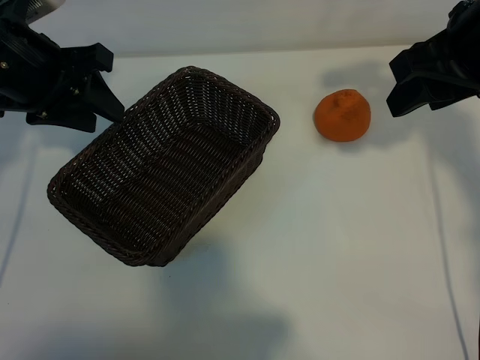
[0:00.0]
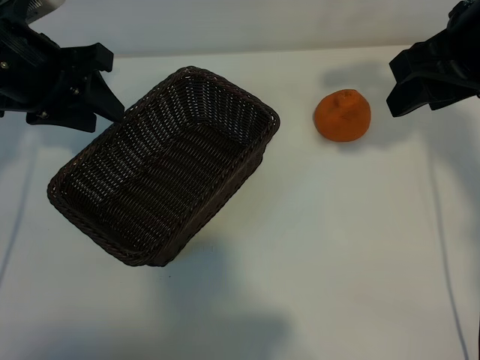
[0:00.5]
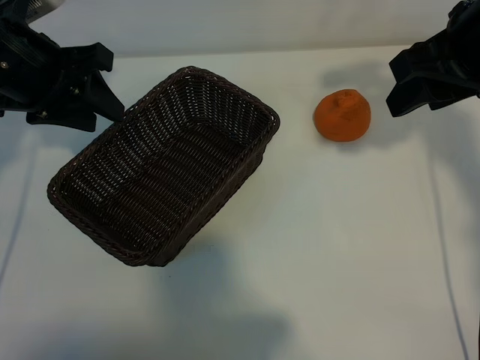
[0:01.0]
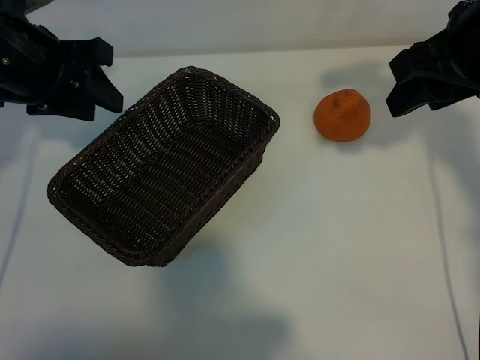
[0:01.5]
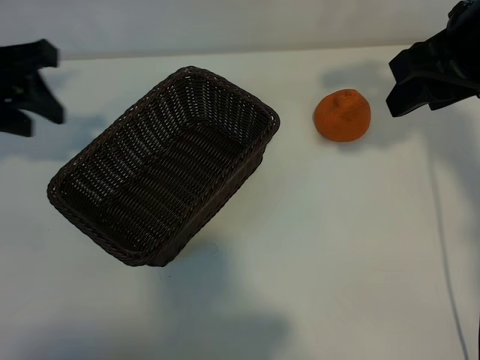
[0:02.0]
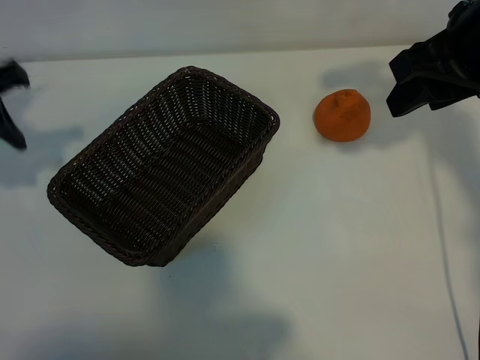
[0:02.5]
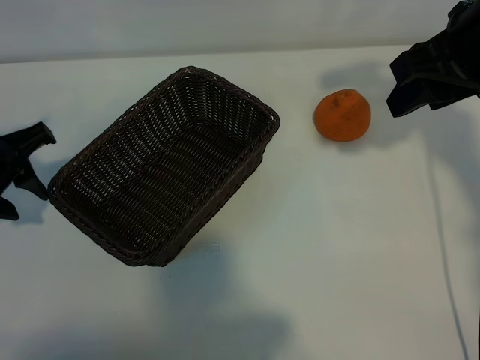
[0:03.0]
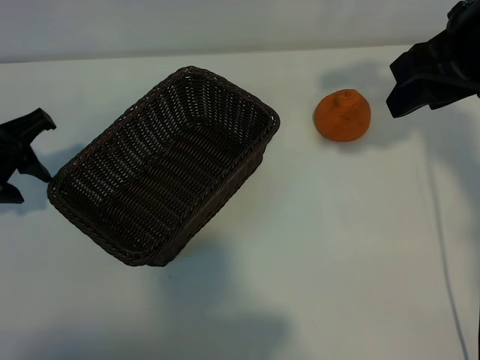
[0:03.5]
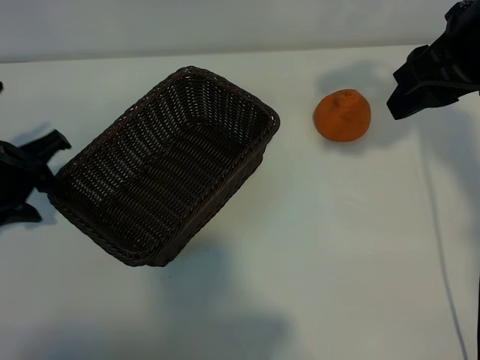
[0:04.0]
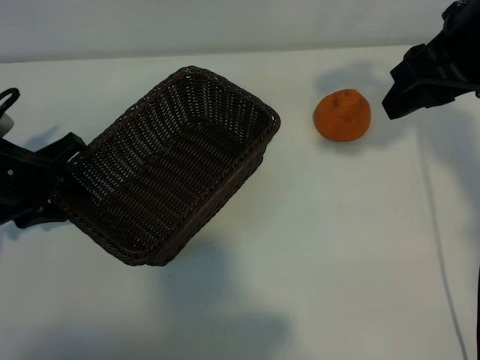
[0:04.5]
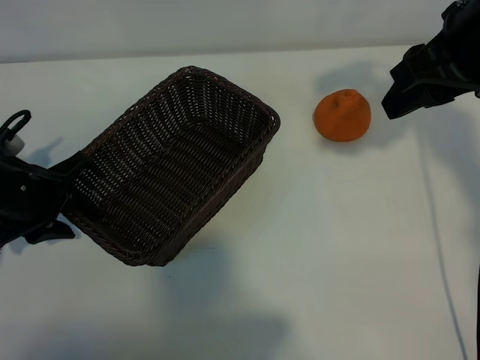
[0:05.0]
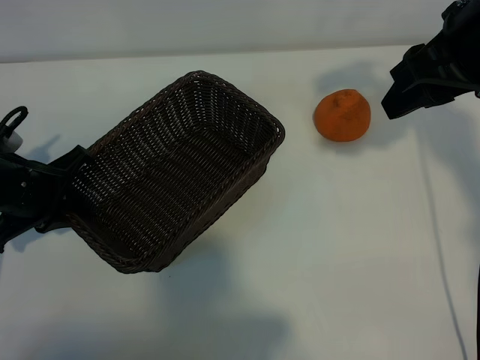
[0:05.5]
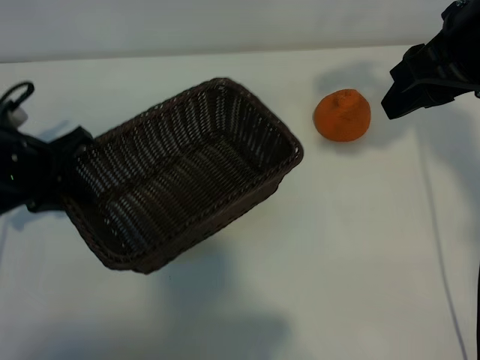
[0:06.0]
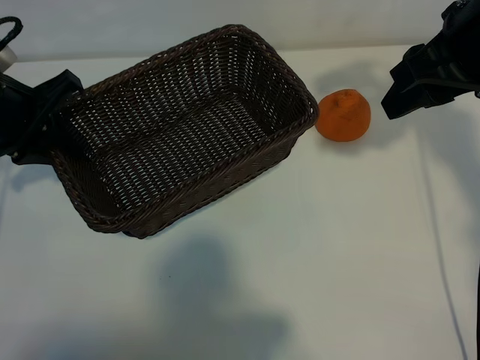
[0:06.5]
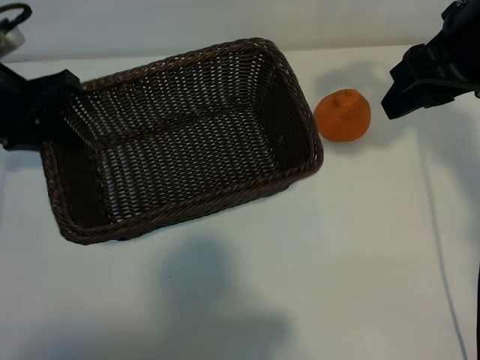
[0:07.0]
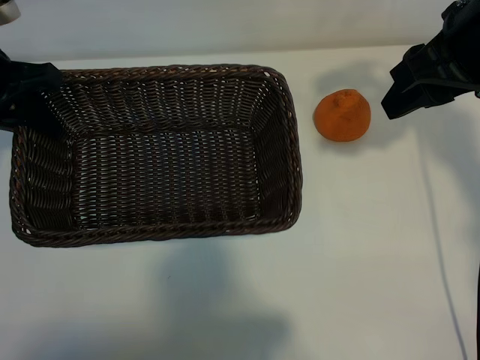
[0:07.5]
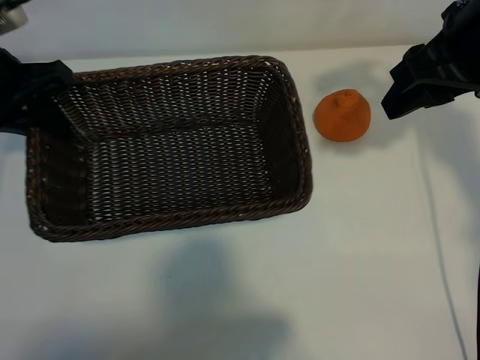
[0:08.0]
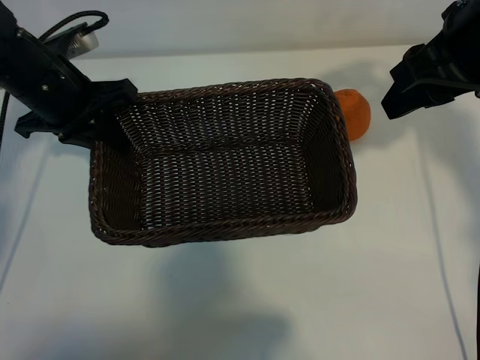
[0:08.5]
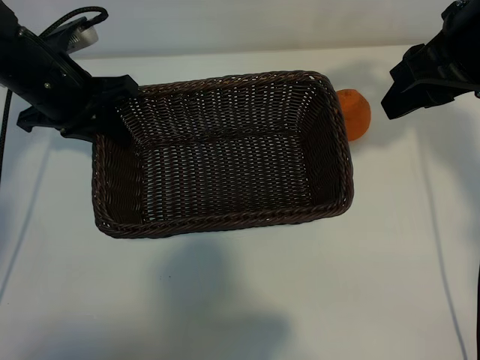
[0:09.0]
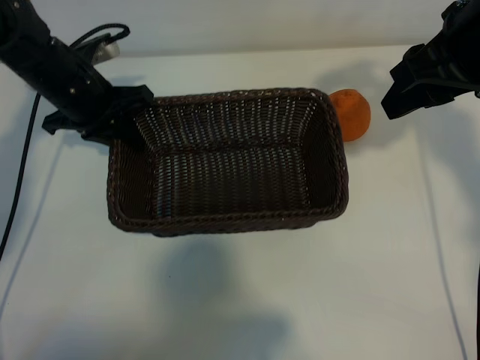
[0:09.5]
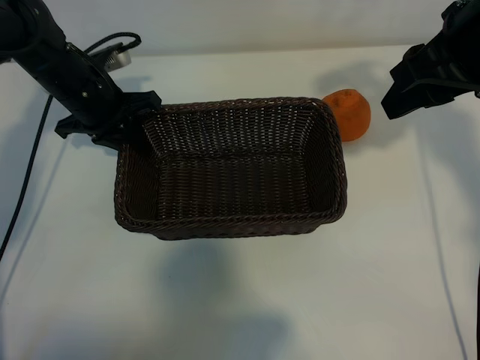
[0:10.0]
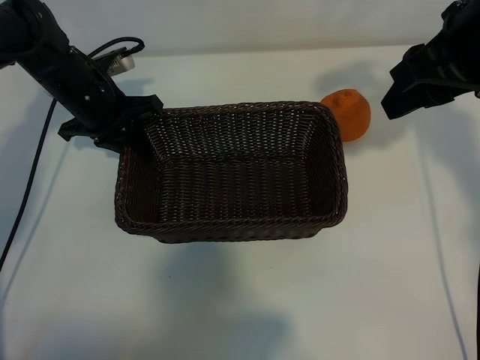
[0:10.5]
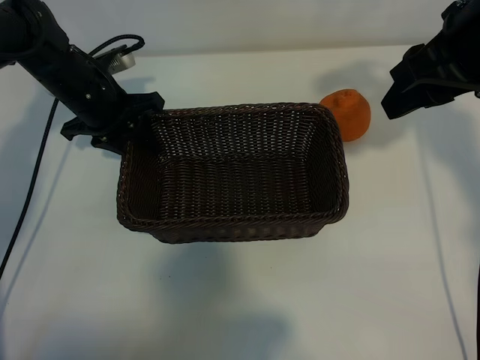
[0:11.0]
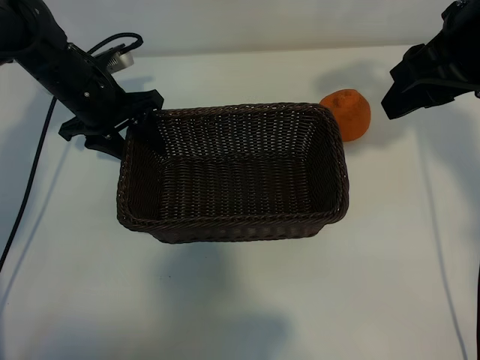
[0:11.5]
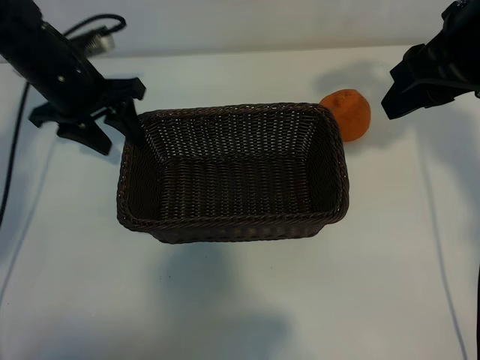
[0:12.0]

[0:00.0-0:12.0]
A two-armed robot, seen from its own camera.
Task of the whole recording: pick up the orange and put it into the basket.
Step, 0:01.5 to 0:05.0: Grasp the basket with left gripper.
Step, 0:05.5 to 0:11.0: Place the basket in the center of view with left gripper.

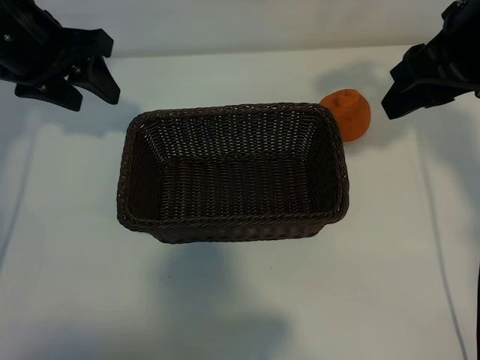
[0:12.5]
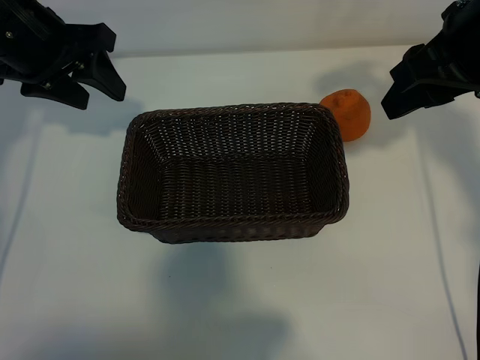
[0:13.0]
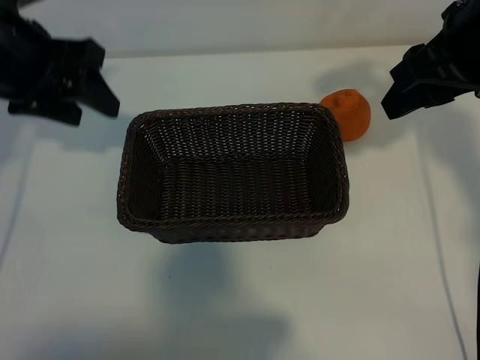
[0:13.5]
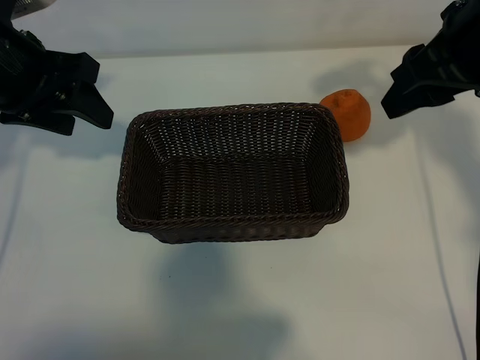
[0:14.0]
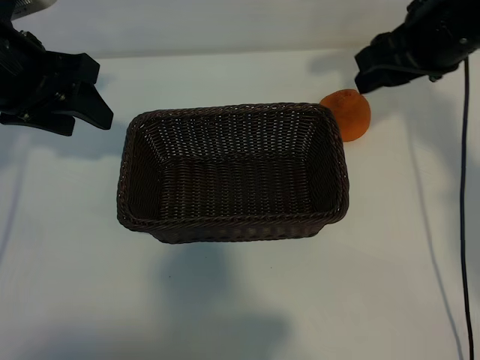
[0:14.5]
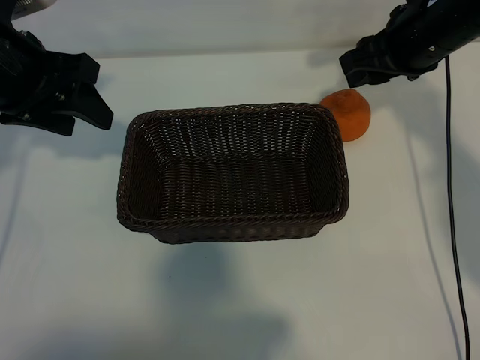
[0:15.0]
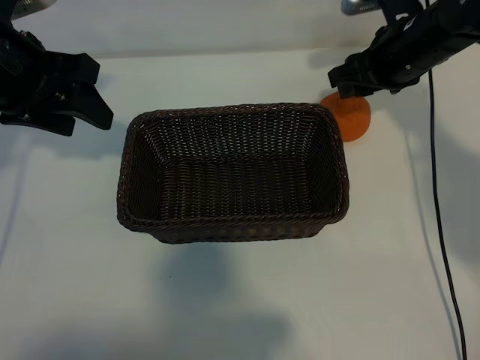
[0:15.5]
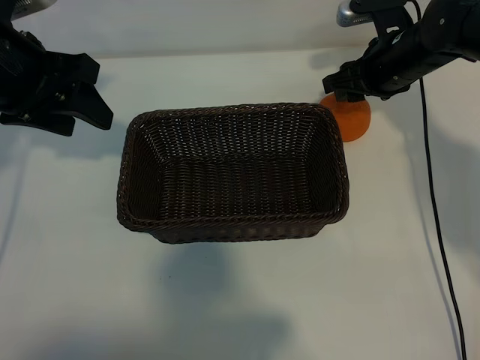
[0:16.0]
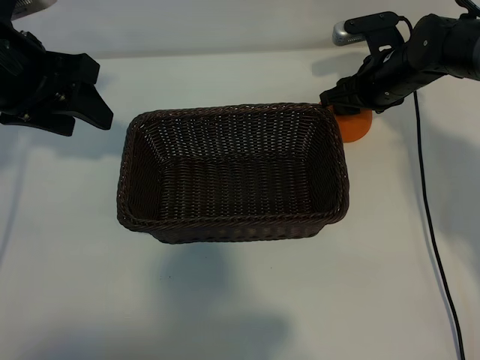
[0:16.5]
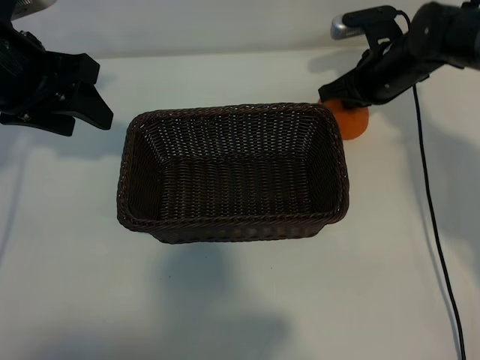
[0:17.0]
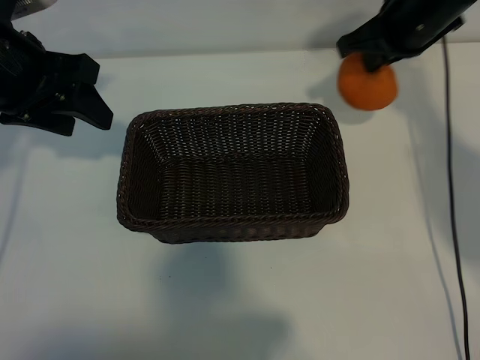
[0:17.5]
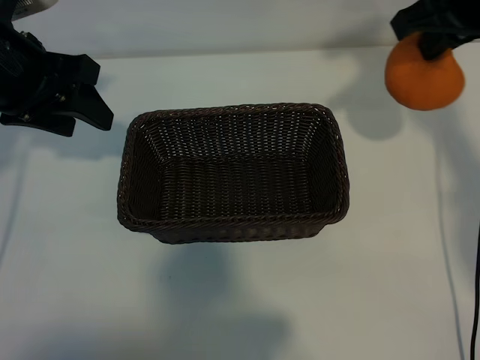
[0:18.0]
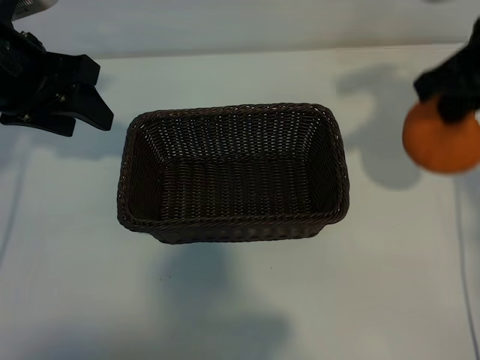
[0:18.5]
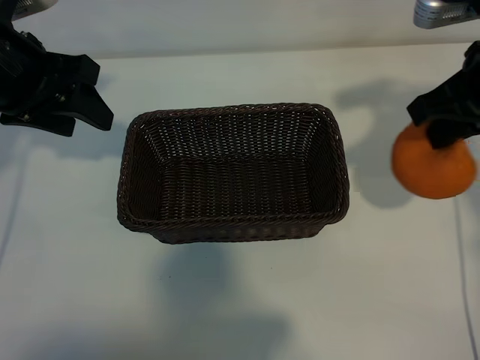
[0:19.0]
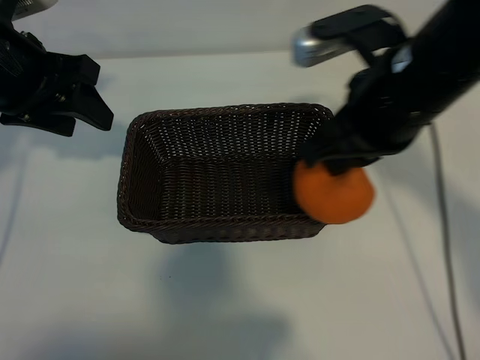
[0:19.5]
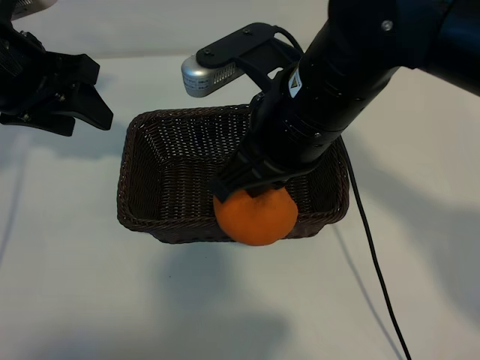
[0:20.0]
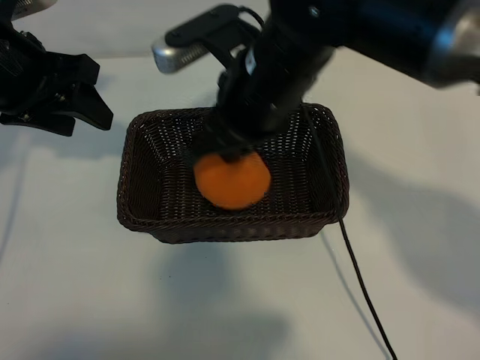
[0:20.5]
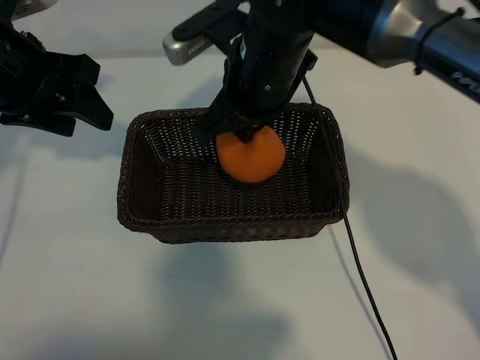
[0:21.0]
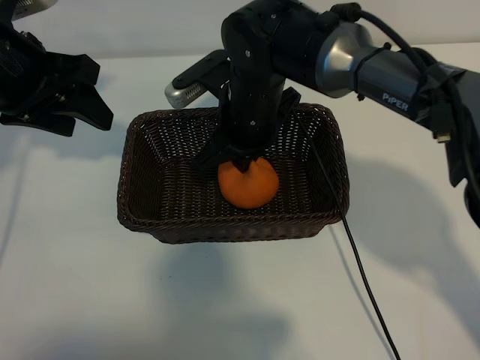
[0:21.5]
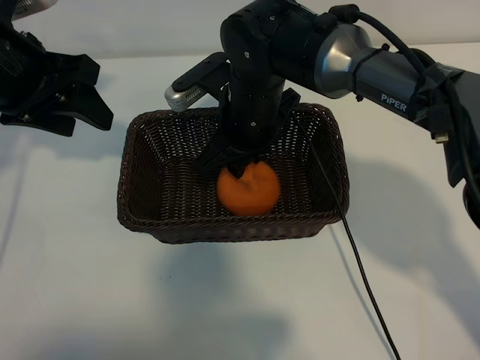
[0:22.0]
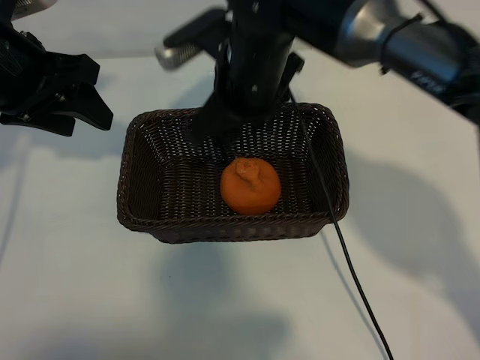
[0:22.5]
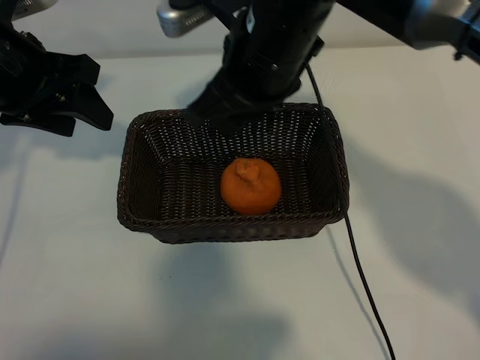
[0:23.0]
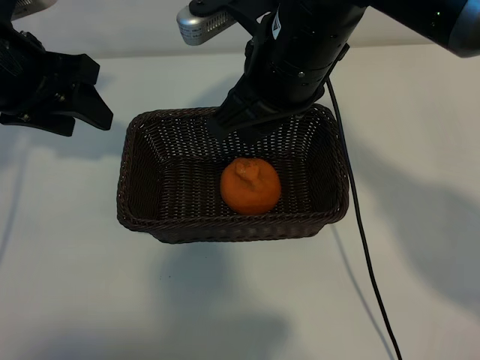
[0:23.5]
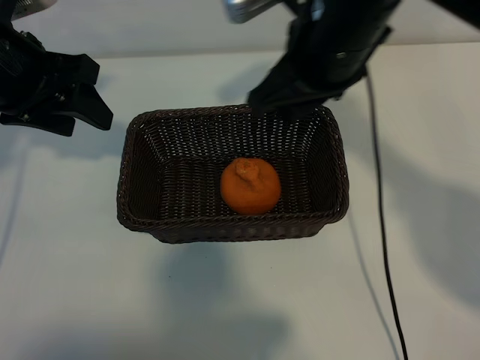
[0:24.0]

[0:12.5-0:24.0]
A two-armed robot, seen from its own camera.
Task of the whole recording: pick up the orange and put it into the basket.
Step, 0:12.5 to 0:16.5: Grasp the orange with right gripper.
Step, 0:17.0 to 0:22.0: Place the orange in the basket with right gripper.
